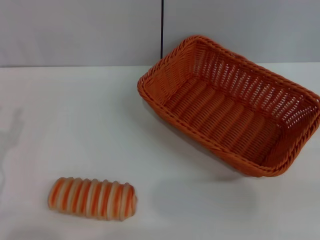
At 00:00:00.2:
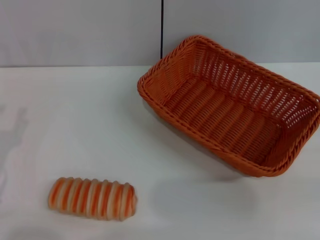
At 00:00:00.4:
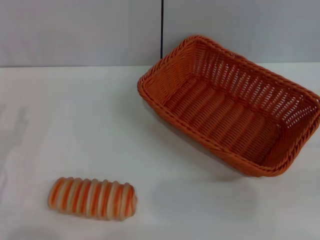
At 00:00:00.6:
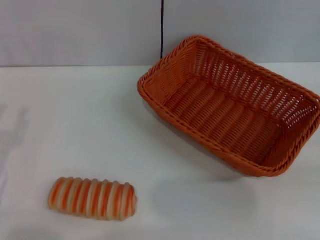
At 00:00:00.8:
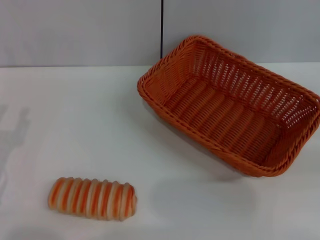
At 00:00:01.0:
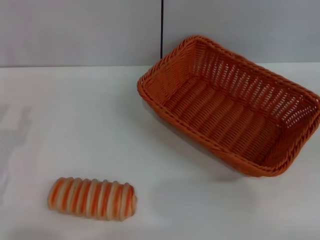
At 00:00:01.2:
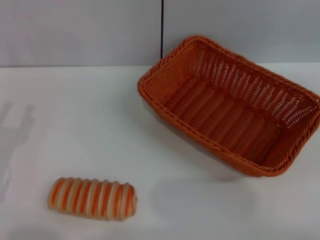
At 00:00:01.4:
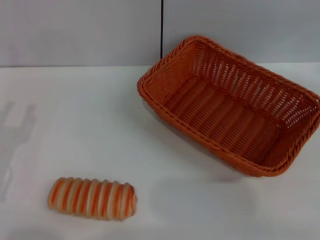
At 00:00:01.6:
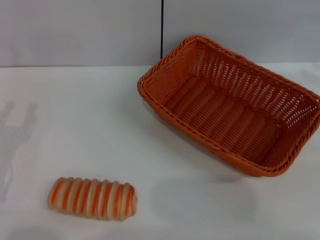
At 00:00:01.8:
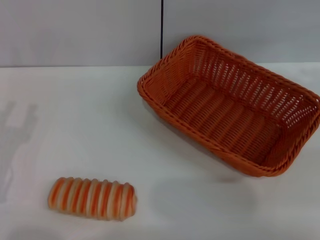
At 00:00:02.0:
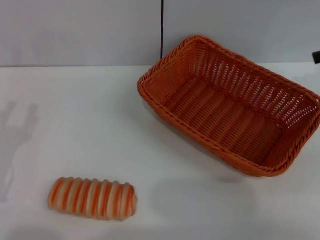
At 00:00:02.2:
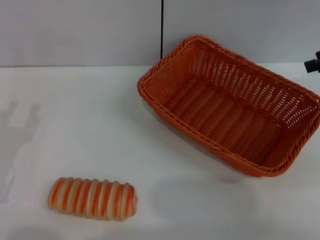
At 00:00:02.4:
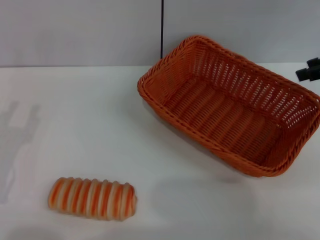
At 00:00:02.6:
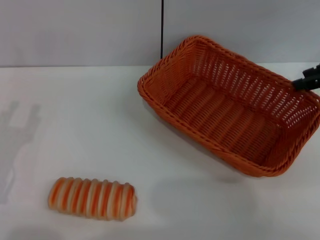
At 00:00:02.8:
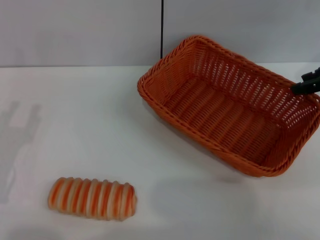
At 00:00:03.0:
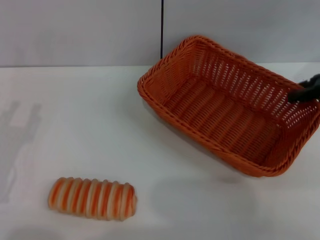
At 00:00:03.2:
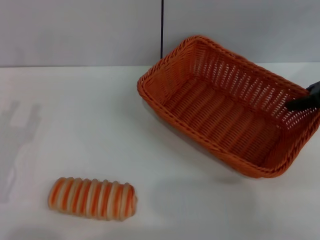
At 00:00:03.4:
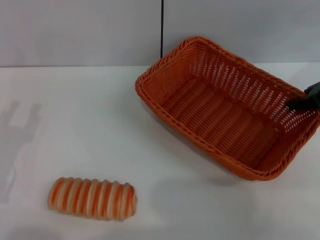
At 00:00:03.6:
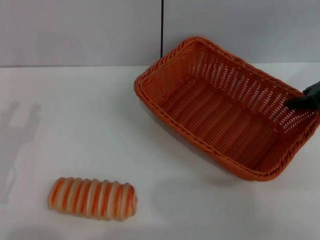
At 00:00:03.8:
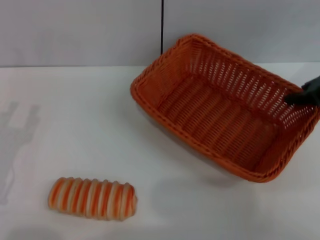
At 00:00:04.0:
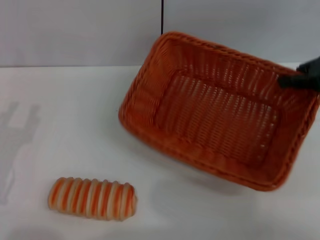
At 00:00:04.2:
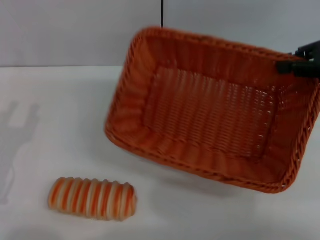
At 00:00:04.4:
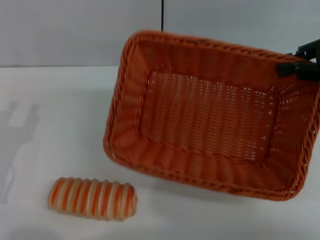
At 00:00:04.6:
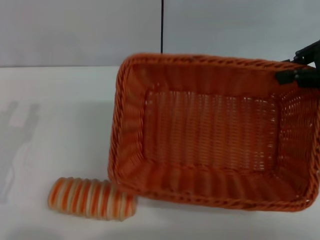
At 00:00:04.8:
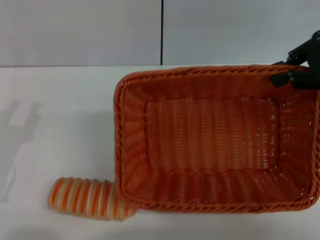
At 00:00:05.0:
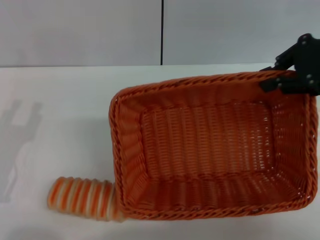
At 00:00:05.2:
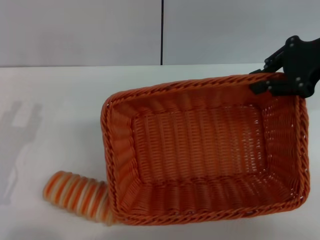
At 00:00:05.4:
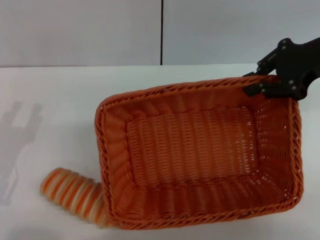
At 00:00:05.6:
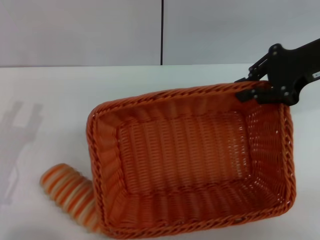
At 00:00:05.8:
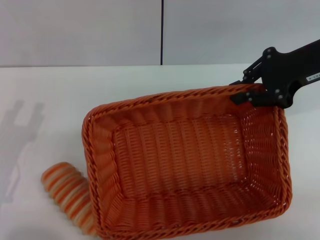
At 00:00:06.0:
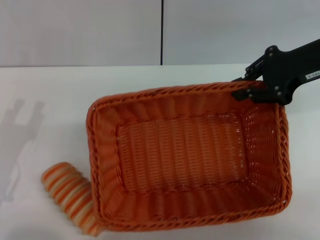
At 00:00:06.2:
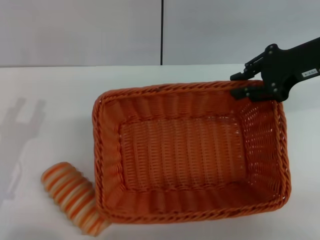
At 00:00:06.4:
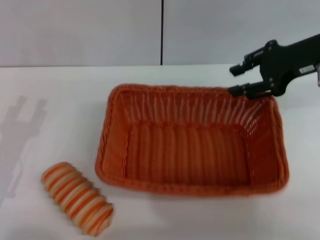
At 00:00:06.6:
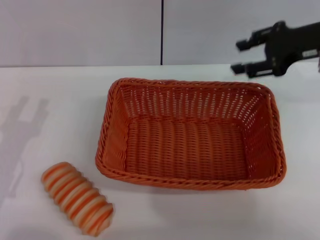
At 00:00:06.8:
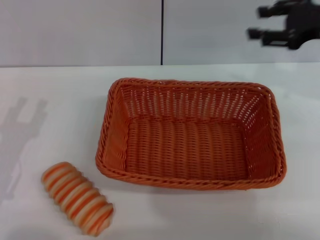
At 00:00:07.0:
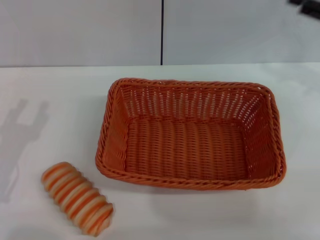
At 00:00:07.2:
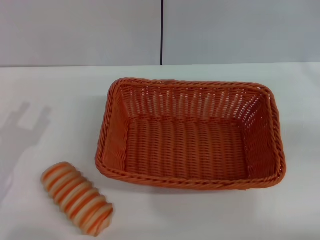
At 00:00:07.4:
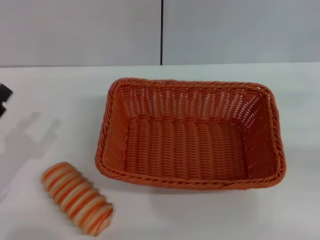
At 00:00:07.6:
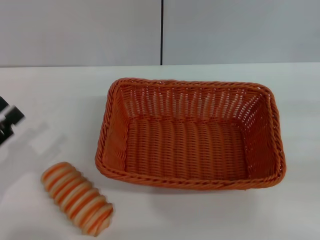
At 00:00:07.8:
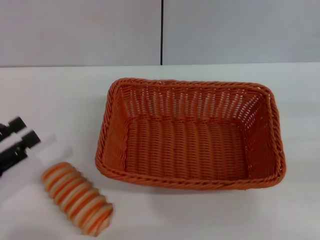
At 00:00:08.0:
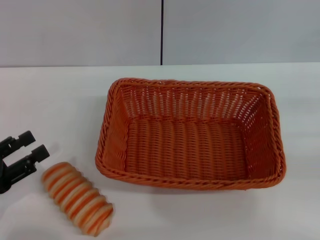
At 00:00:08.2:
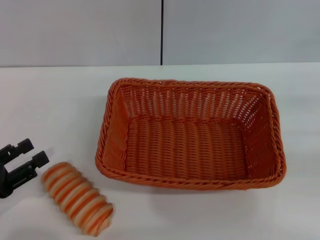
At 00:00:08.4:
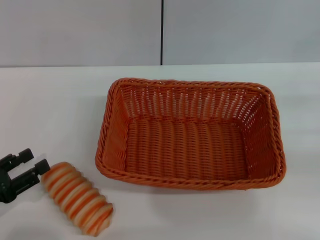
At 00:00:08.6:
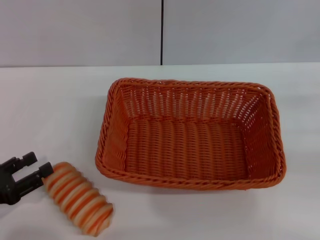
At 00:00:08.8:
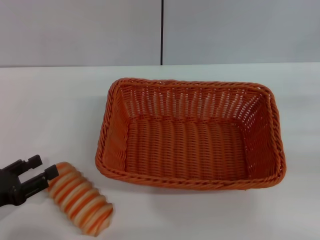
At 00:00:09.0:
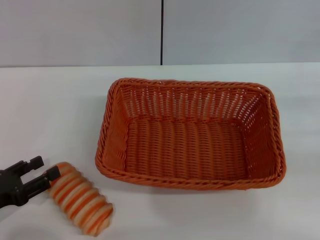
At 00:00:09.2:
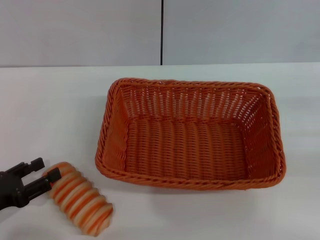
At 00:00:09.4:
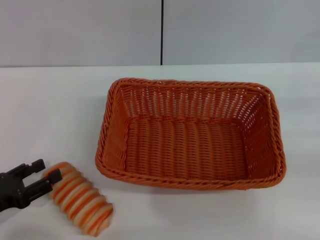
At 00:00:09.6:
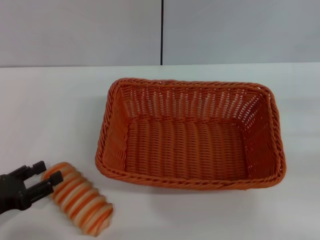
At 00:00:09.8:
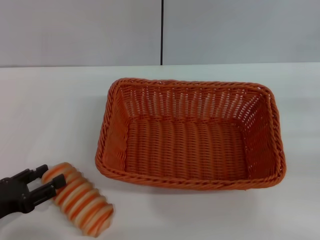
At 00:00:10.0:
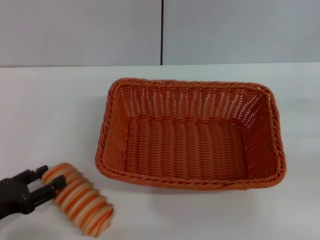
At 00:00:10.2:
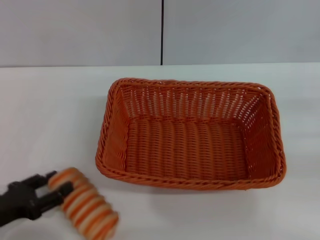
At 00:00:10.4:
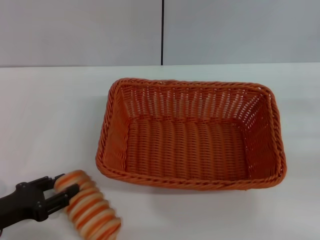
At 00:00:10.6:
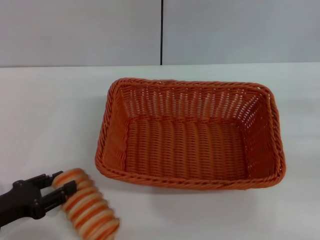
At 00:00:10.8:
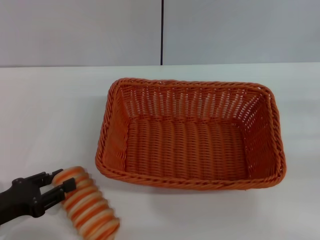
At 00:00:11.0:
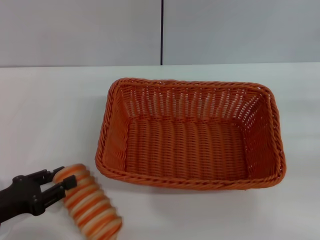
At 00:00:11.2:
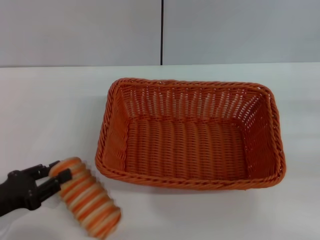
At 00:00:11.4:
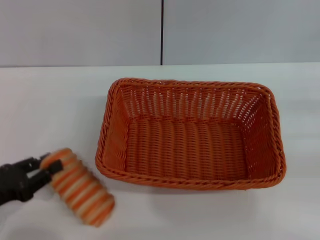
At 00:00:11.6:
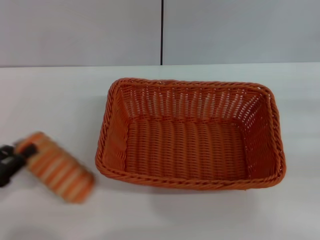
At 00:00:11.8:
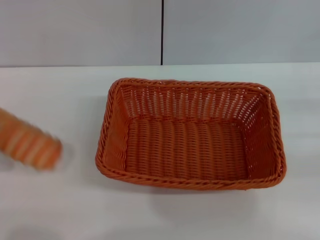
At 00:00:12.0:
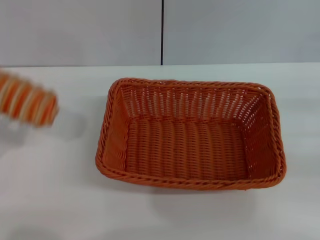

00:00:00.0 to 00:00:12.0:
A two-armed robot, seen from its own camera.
Step, 00:00:00.0 to 00:00:04.2: Pick up the light basket with the right gripper.
Step, 00:00:04.4 to 00:00:06.6: Place the light basket in the center of view with the right gripper.
Step, 00:00:06.8 to 00:00:11.8: Pick up the long bread with the left gripper.
00:00:01.6 to 00:00:03.0: The right gripper travels to the left and downward by roughly 10 cm.
00:00:03.0 to 00:00:04.4: The right gripper ends up some 5 cm from where it was, and closes up.
00:00:04.4 to 00:00:06.0: The right gripper moves to the left, approximately 5 cm.
00:00:06.0 to 00:00:07.6: The right gripper travels to the right, backward and downward by roughly 25 cm, and opens.
00:00:09.0 to 00:00:10.4: The grippers stay close to where they were, moving slightly.
00:00:10.4 to 00:00:12.0: The left gripper heads upward and to the left, covering roughly 10 cm, and closes.

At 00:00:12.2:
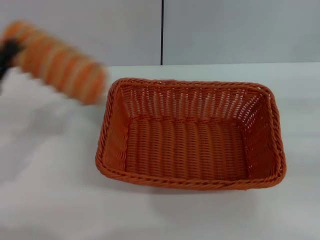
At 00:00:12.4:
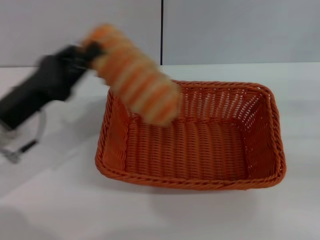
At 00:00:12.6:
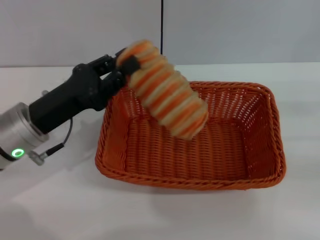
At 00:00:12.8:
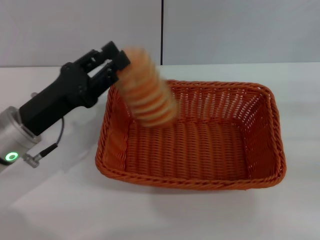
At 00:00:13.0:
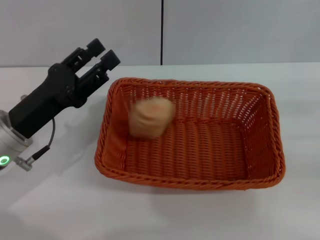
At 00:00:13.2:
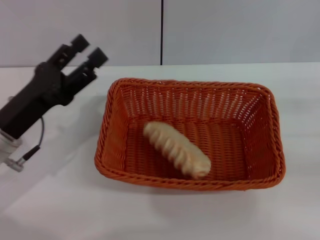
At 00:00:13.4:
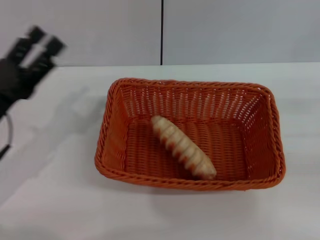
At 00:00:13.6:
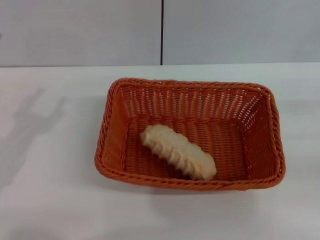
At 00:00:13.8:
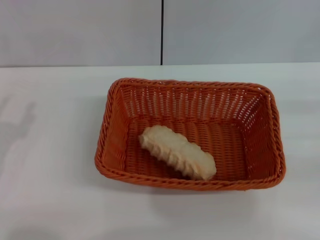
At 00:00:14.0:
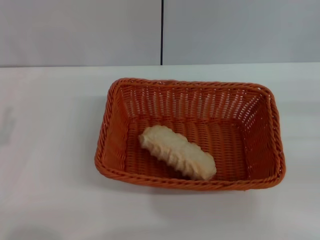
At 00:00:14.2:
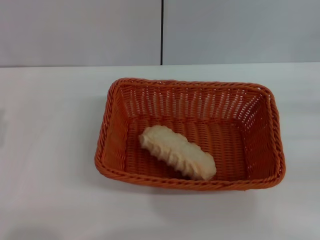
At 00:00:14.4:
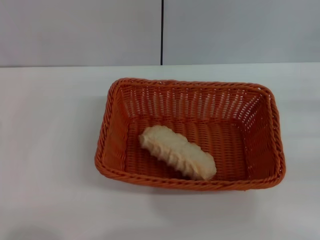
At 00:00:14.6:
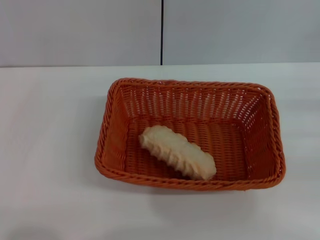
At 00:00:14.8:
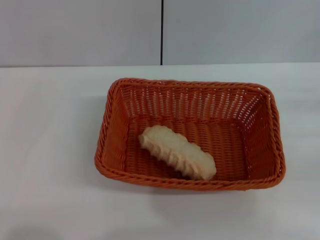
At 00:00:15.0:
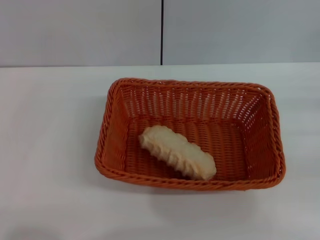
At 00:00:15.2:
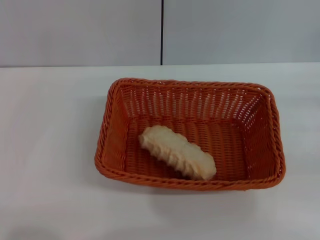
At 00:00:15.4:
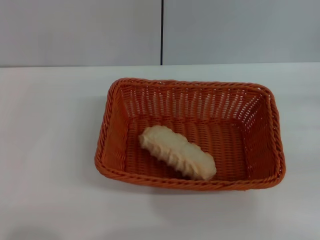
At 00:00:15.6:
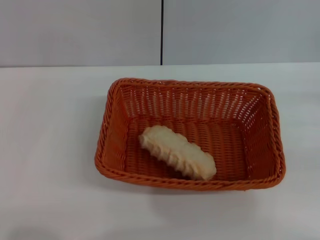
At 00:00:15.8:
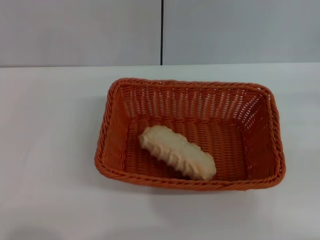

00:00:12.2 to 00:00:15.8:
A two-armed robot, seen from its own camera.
Step, 00:00:12.2 to 00:00:13.2: Place the long bread into the light basket with the left gripper.
00:00:12.2 to 00:00:14.0: The left gripper moves backward, some 5 cm, moves approximately 10 cm to the right and comes back, and opens its fingers.
